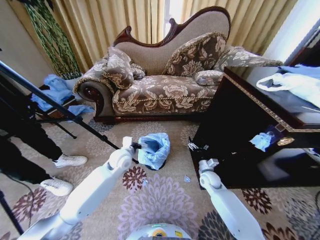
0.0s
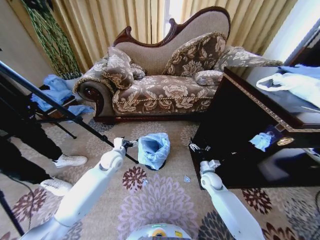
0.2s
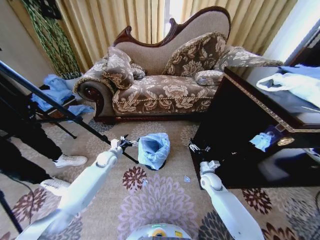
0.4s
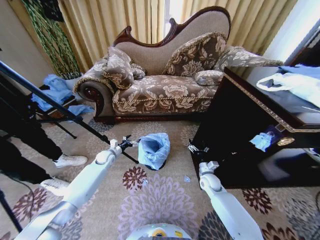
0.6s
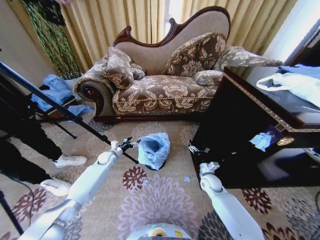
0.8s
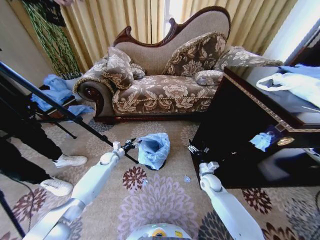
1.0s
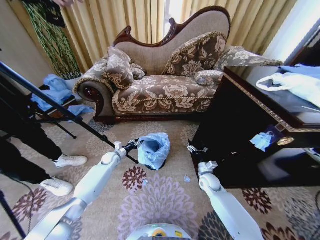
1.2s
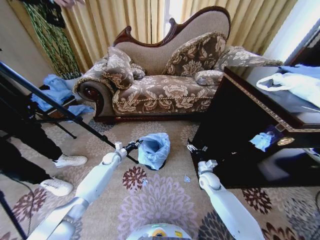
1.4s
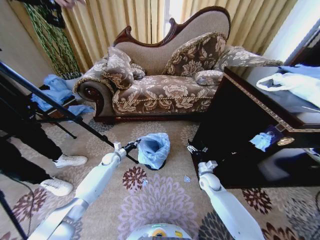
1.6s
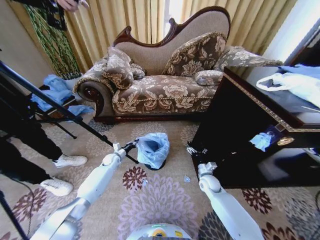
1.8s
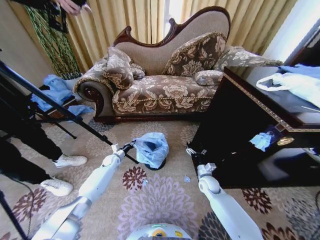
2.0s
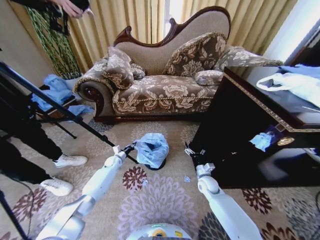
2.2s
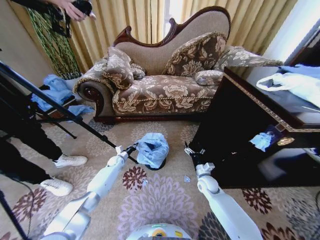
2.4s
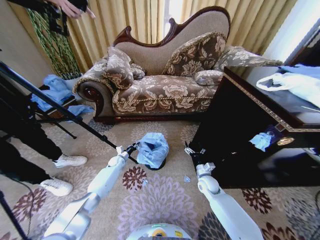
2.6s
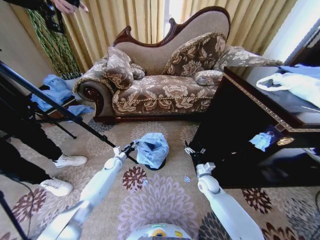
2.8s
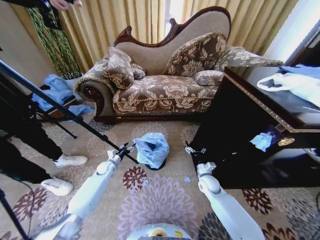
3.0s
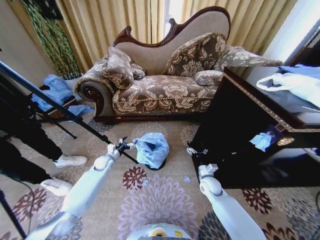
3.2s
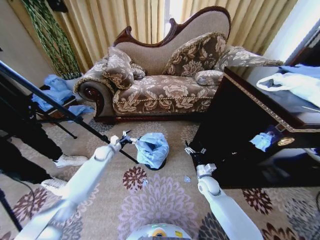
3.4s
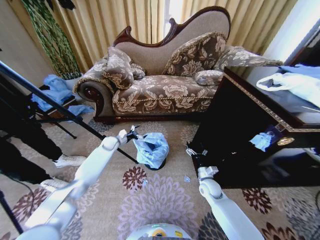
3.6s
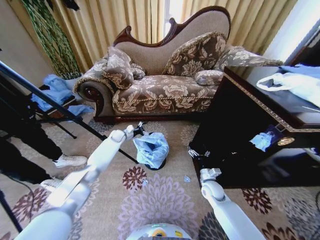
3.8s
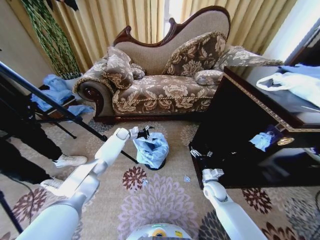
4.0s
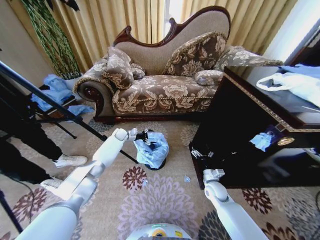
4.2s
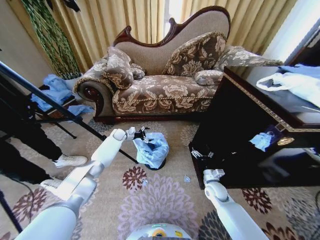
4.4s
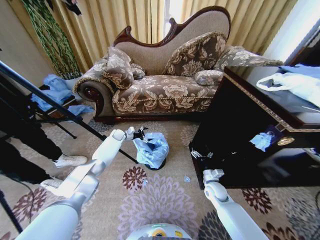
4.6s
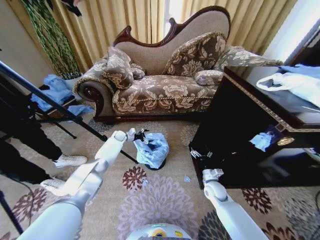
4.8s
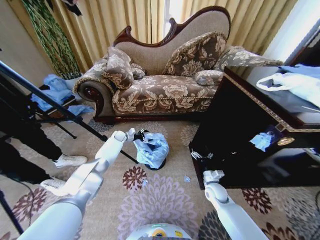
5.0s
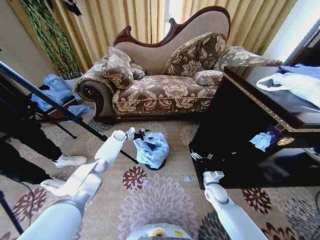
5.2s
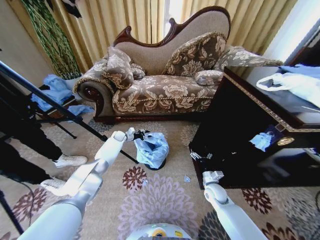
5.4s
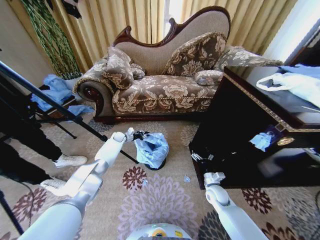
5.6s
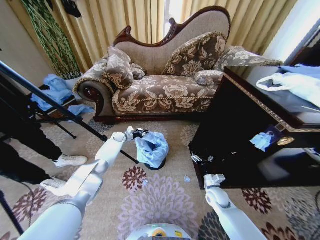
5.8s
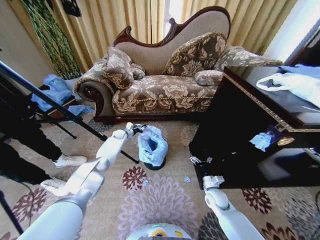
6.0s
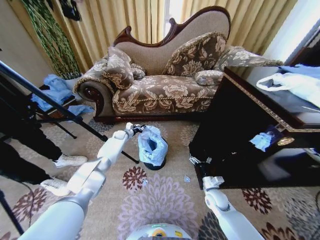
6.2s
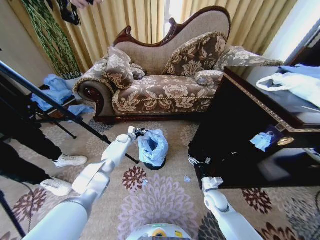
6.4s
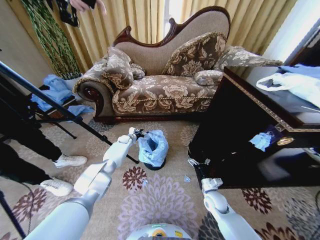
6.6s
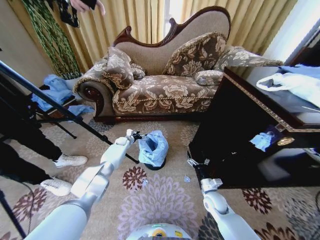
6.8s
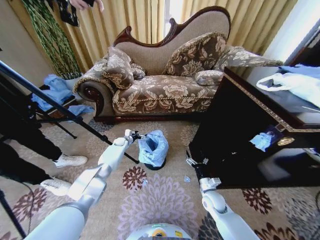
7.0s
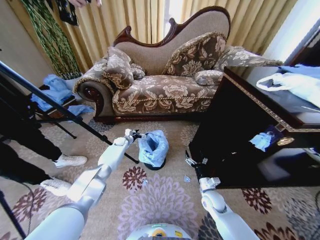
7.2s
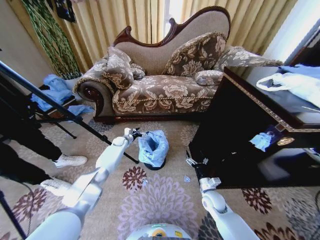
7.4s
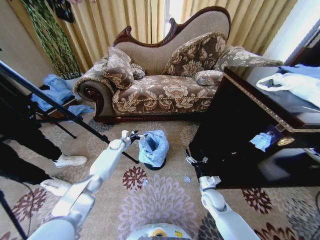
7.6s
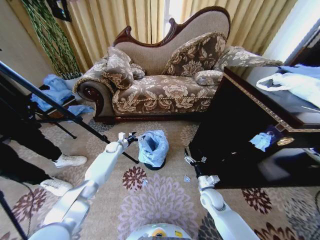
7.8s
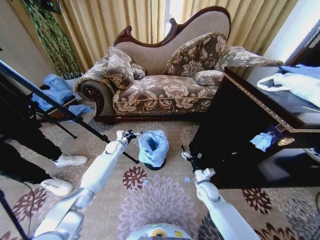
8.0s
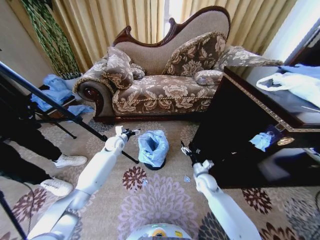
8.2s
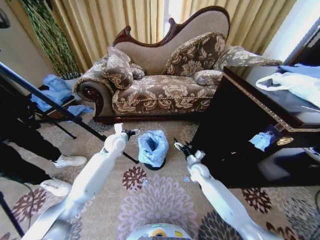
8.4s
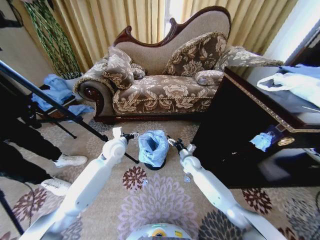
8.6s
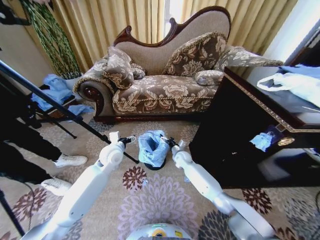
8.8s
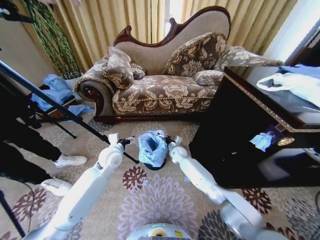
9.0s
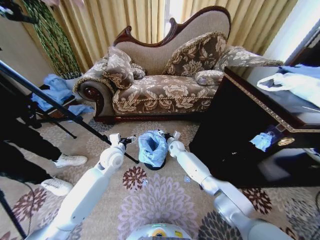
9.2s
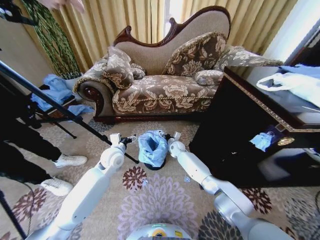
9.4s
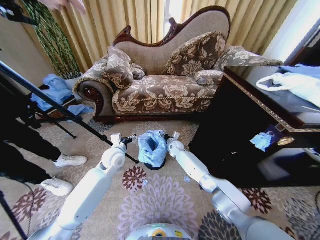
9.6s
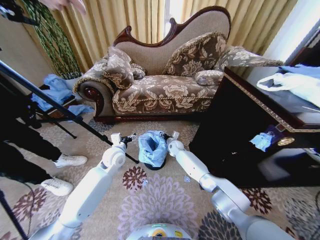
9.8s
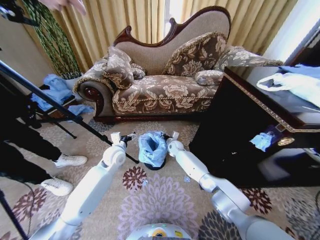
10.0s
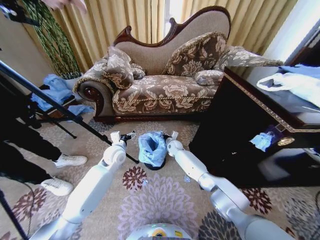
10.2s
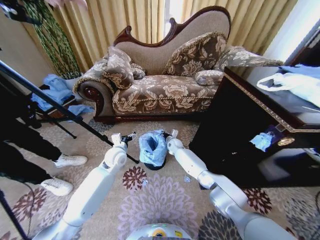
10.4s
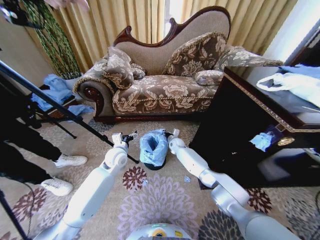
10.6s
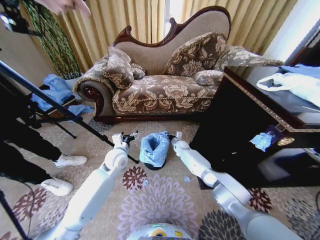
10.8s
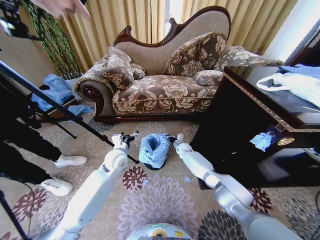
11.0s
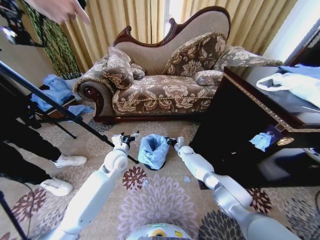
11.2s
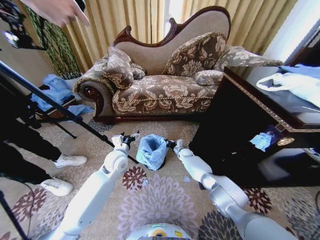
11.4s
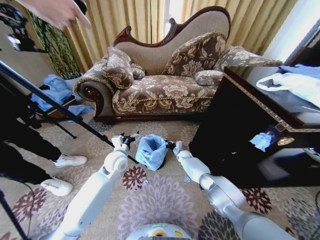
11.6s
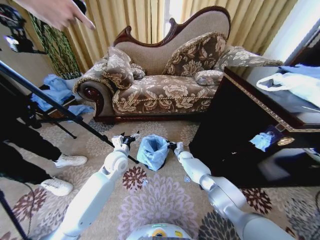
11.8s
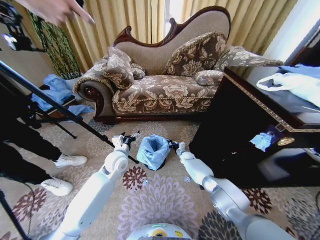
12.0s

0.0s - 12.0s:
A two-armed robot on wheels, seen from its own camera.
Task of the whole recording: Place a garbage bag over the trash bin.
0.0s - 1.6s: The left gripper moves downward, to the left and forward, about 25 cm, and closes.
1.6s - 3.0s: The left gripper moves roughly 5 cm, and opens.
3.0s - 4.4s: The left gripper moves forward and upward, roughly 20 cm.
4.4s - 6.0s: The left gripper closes up.
6.0s - 7.6s: The left gripper travels backward by some 5 cm, and opens up.
7.6s - 9.0s: The right gripper goes some 25 cm forward and to the left, while the left gripper is displaced backward and upward by some 25 cm.
9.0s - 10.4s: The right gripper shifts some 5 cm forward, and closes.
10.4s - 12.0s: The right gripper goes about 15 cm downward and to the right.

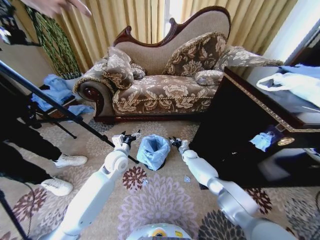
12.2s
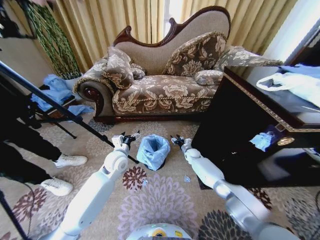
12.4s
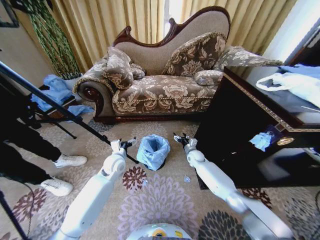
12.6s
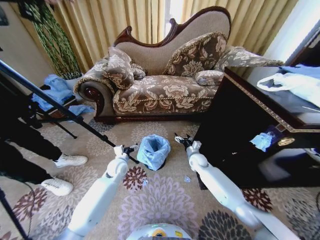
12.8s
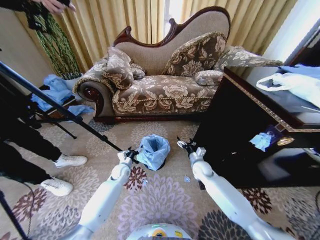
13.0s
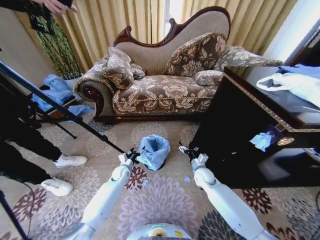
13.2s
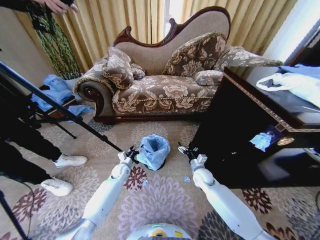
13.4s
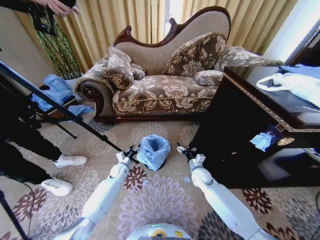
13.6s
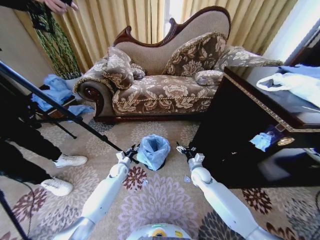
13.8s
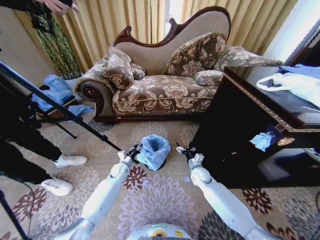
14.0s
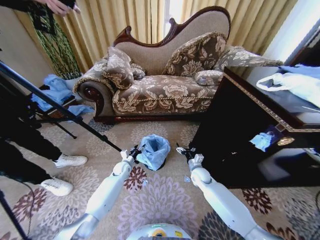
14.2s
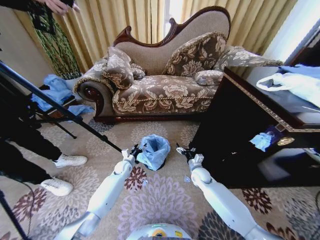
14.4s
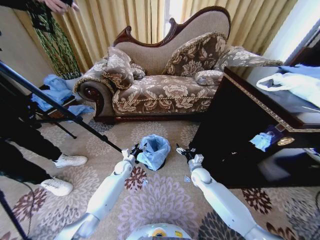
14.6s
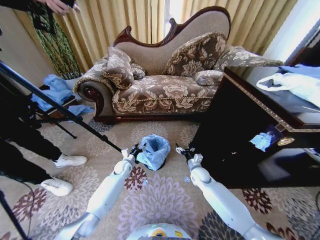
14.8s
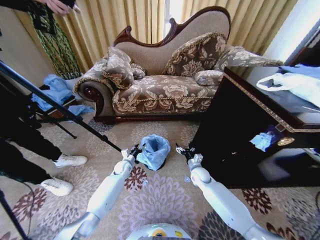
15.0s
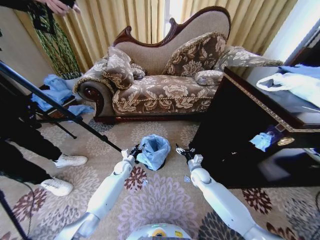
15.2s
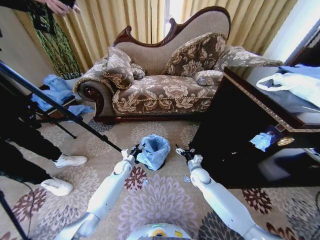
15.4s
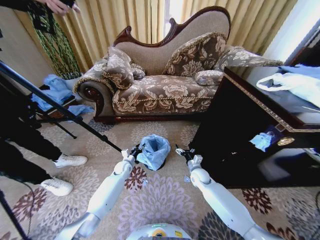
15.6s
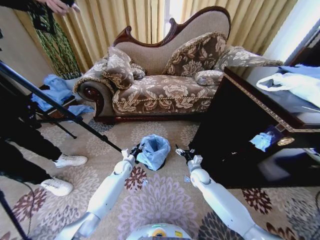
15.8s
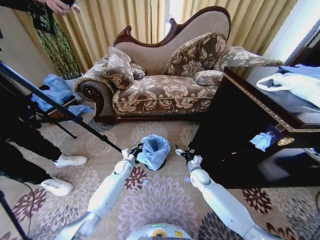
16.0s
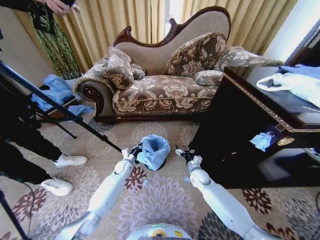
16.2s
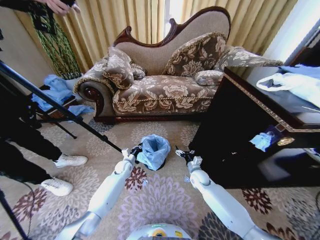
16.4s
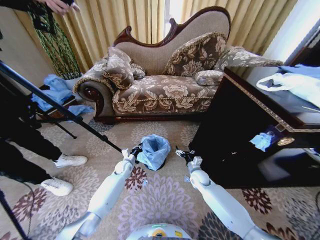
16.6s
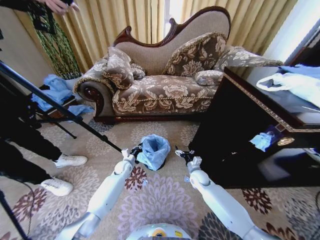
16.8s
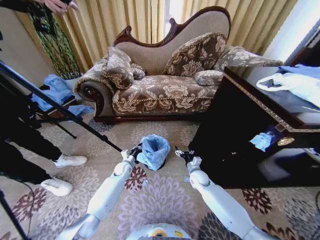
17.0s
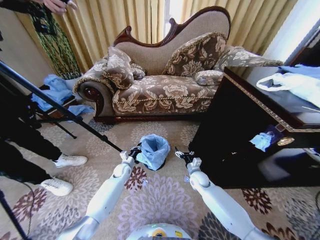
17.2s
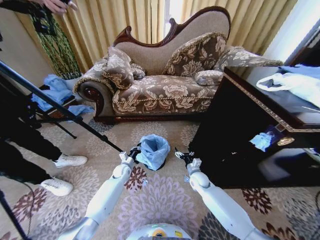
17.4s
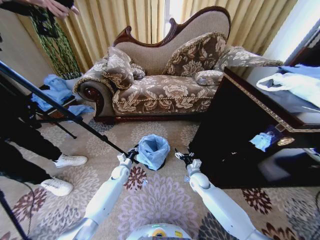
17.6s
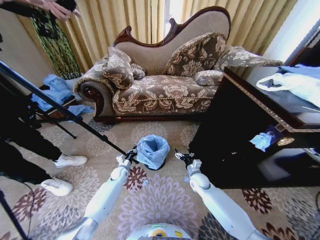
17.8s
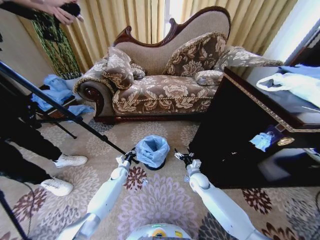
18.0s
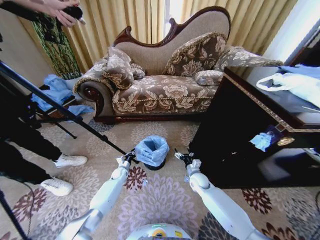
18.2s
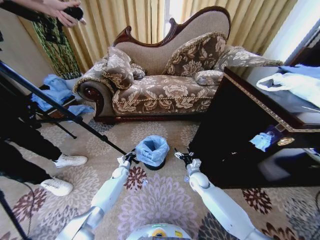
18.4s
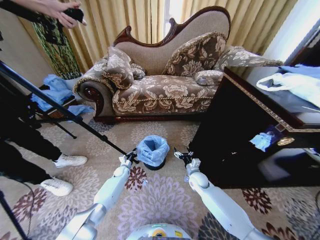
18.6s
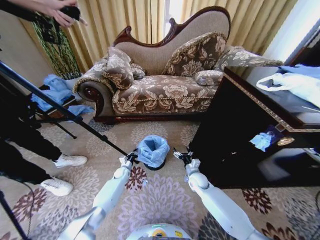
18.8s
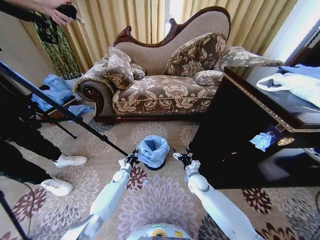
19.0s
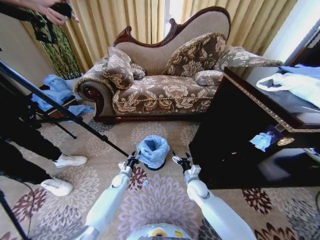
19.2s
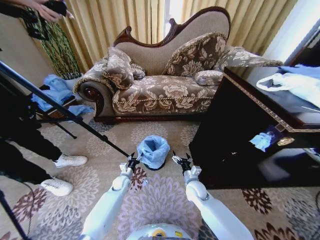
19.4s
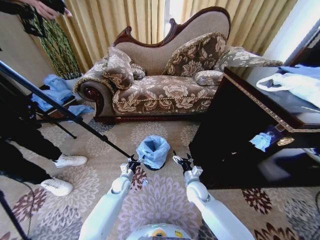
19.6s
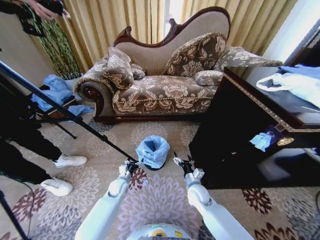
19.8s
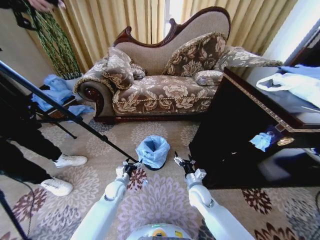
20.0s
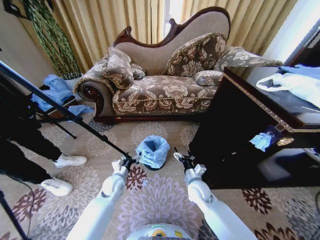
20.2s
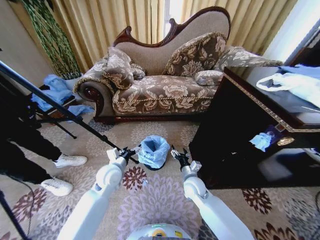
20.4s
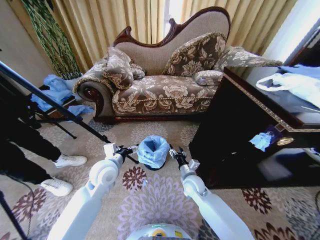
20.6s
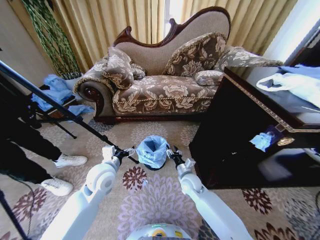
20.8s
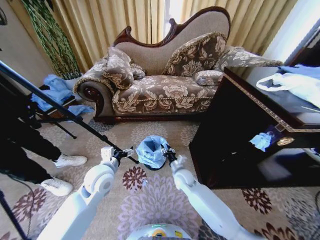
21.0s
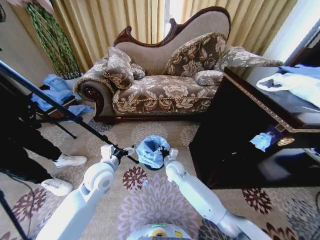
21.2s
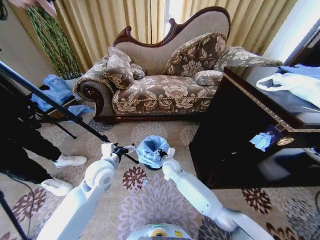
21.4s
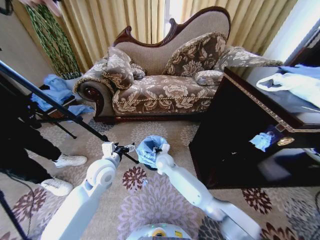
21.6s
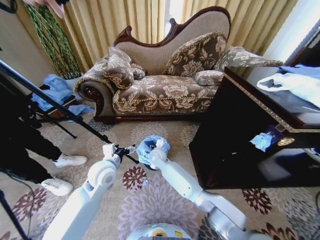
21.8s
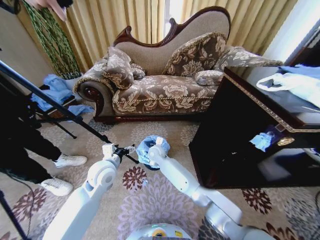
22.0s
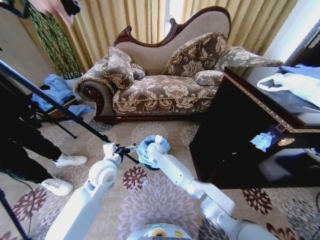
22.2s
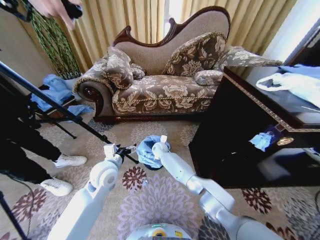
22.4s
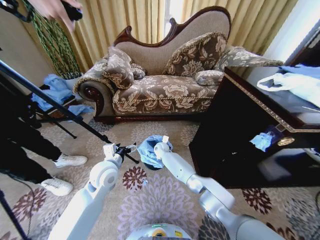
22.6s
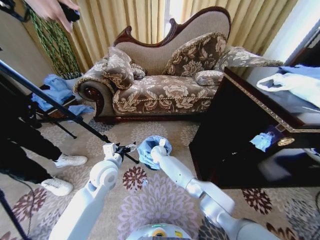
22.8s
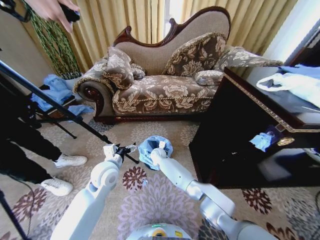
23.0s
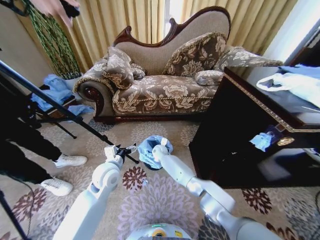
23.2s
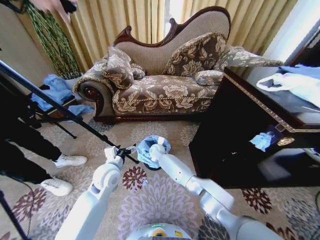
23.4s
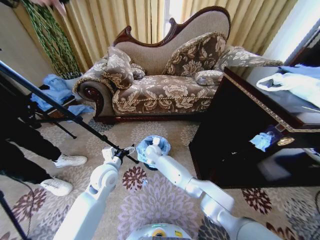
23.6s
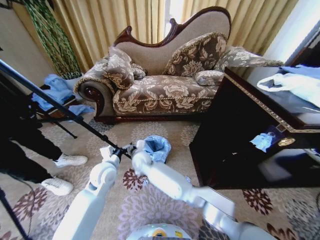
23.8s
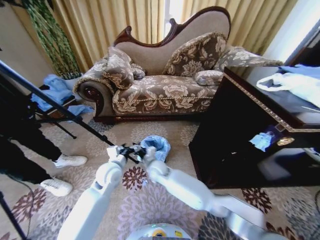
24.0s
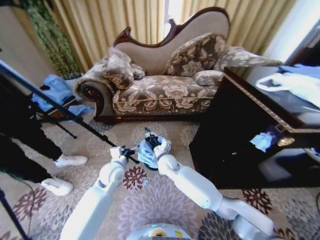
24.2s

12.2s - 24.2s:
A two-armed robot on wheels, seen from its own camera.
Task of the whole recording: Place a garbage bag over the trash bin.
12.2s - 13.8s: The left gripper shifts approximately 20 cm downward, and closes. Meanwhile the right gripper travels backward by about 15 cm, and opens.
13.8s - 15.2s: The grippers make only small movements.
15.2s - 16.6s: The left gripper closes up.
16.6s - 18.2s: The left gripper is displaced downward by approximately 10 cm.
18.2s - 19.8s: The right gripper travels backward by roughly 10 cm. Meanwhile the left gripper goes some 10 cm backward and upward, and opens up.
19.8s - 21.2s: The left gripper is displaced upward by approximately 25 cm. Meanwhile the right gripper is displaced to the left and forward by roughly 15 cm, and closes its fingers.
21.2s - 22.6s: The right gripper moves forward and to the left, some 15 cm.
22.6s - 24.2s: The right gripper heads backward and upward, covering approximately 15 cm, while the left gripper goes approximately 5 cm downward.
